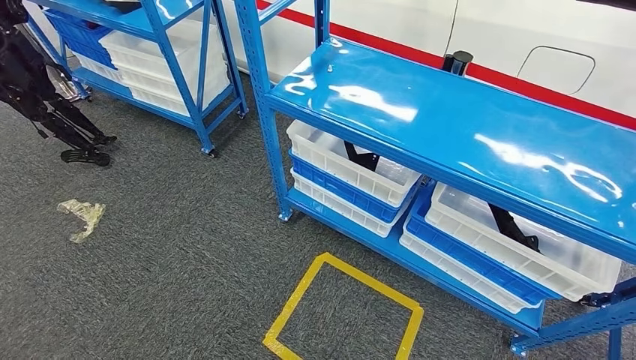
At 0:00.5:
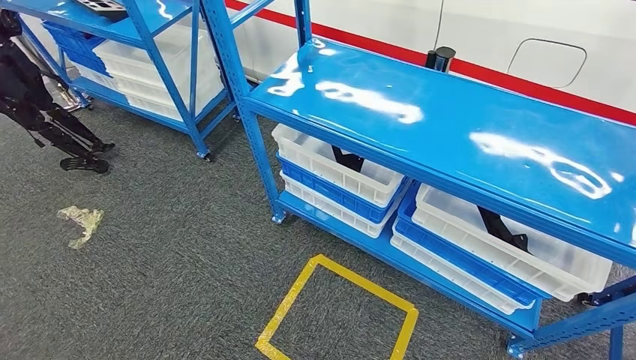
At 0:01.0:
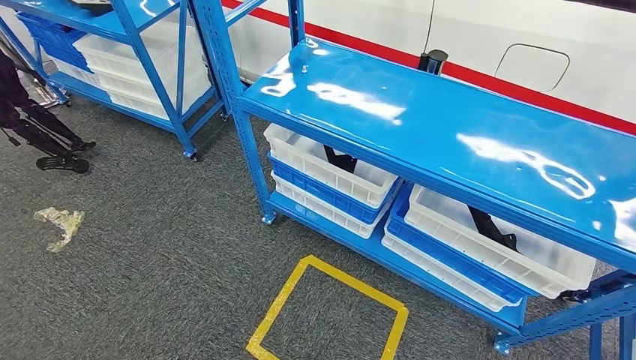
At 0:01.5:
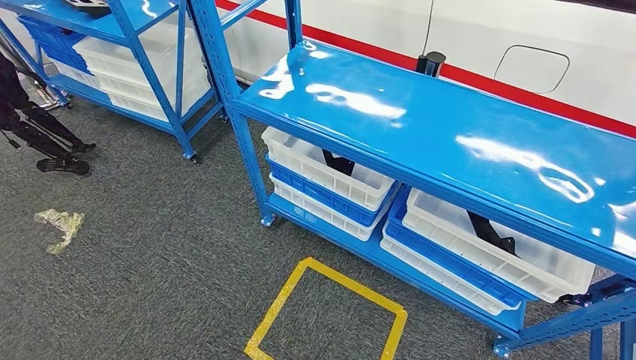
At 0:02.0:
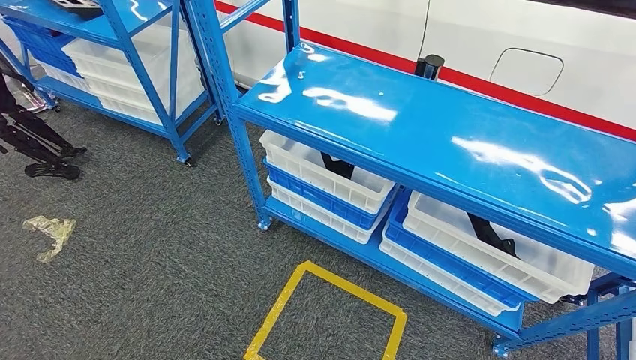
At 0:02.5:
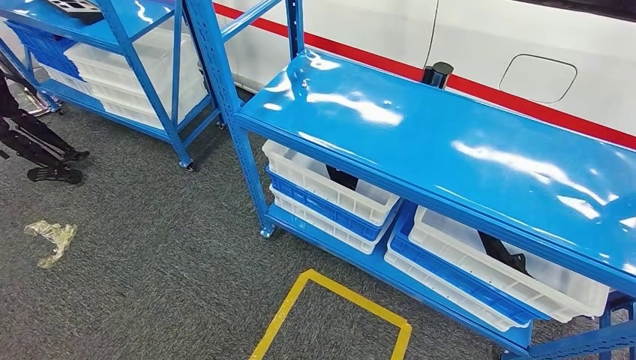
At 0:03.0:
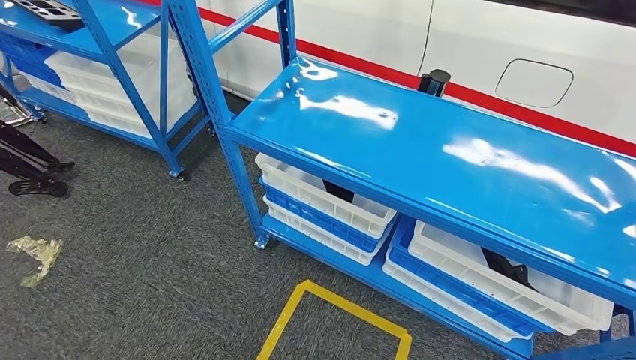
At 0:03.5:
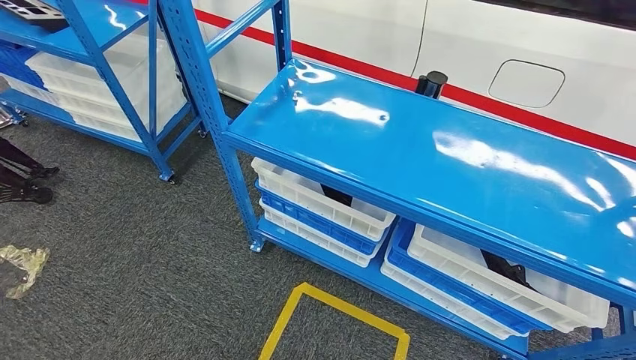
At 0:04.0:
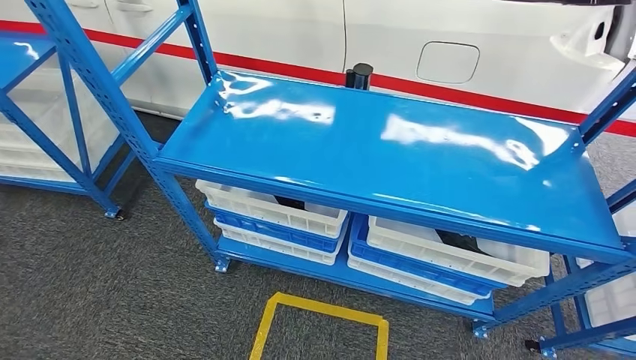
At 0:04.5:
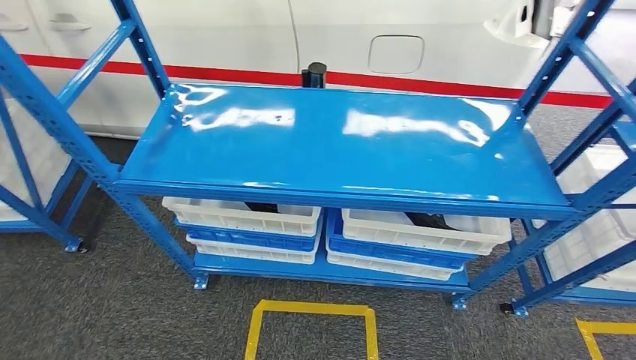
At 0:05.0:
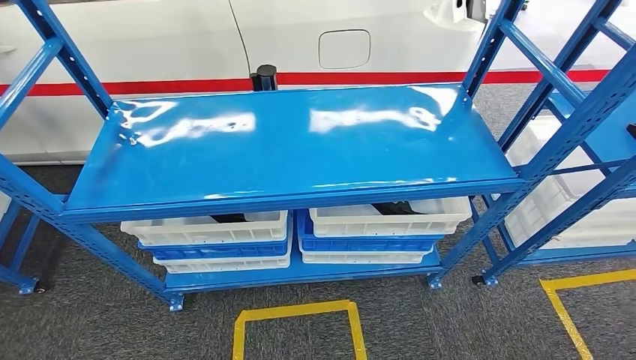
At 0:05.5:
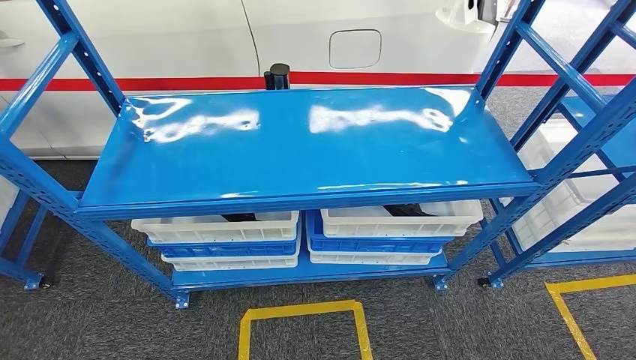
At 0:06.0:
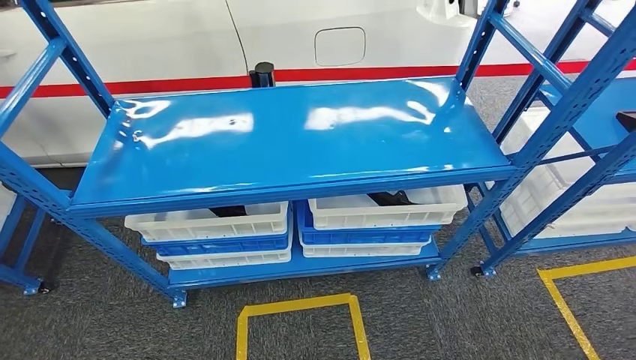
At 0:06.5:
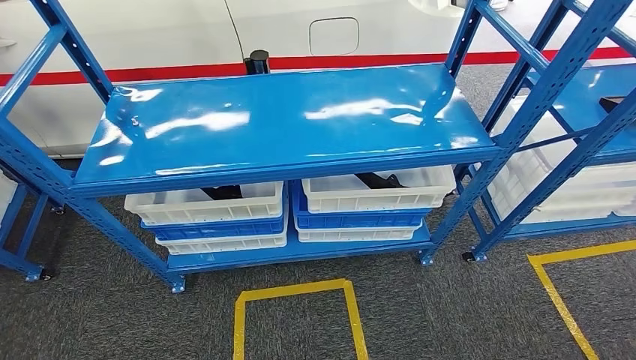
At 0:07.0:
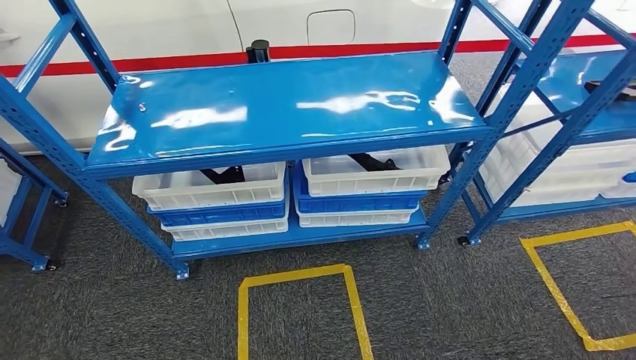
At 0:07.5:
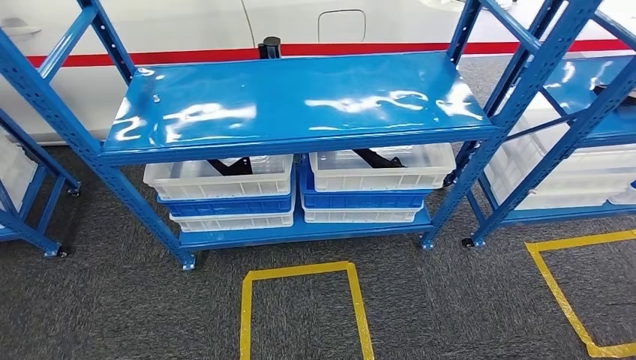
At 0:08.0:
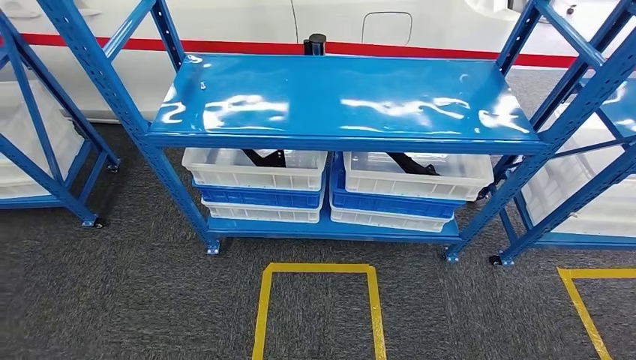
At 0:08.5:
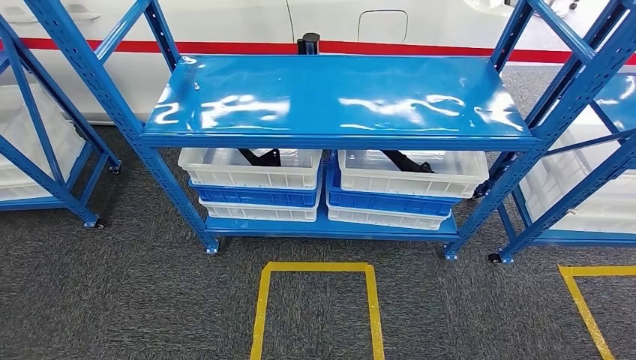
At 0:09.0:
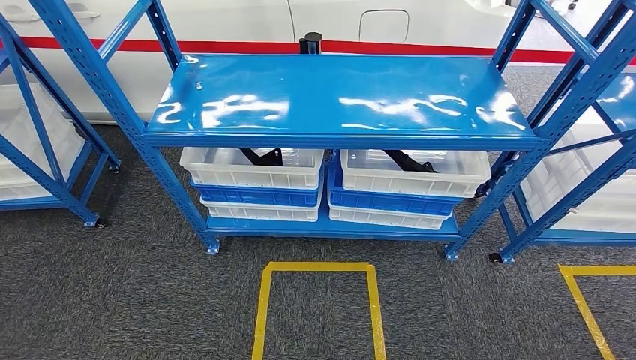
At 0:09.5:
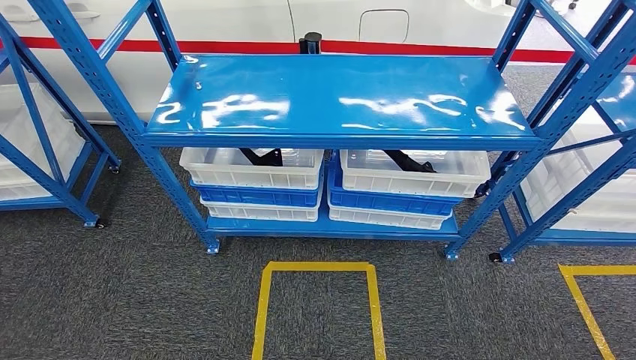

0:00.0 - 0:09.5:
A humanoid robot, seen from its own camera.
Step, 0:00.0 - 0:09.5: Move to the initial position of the shelf.
